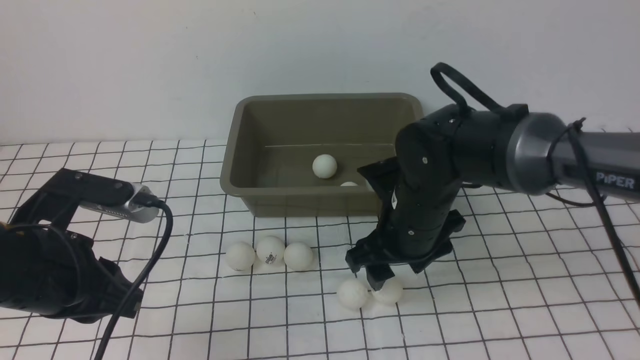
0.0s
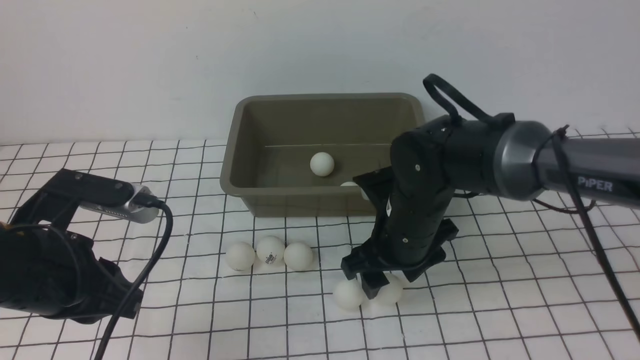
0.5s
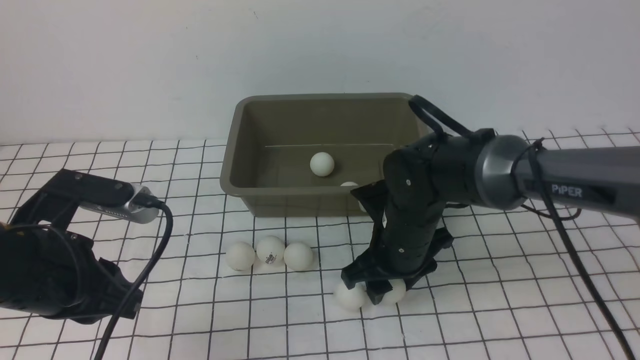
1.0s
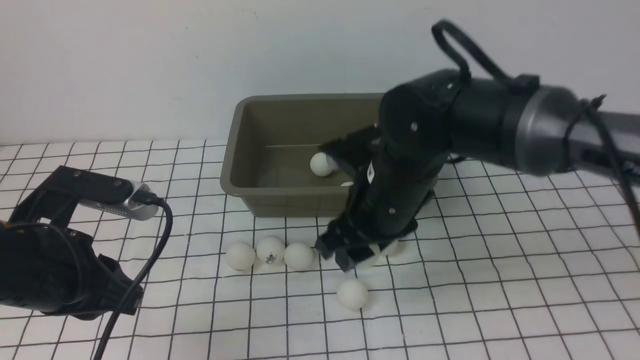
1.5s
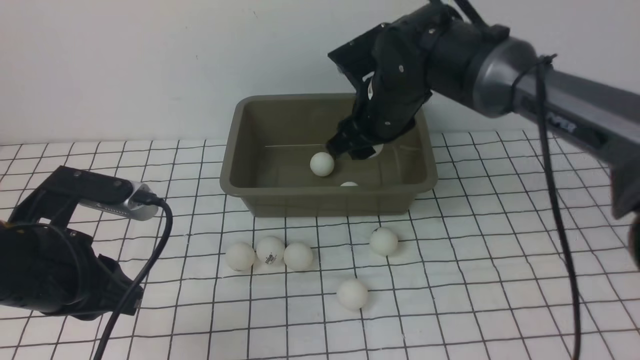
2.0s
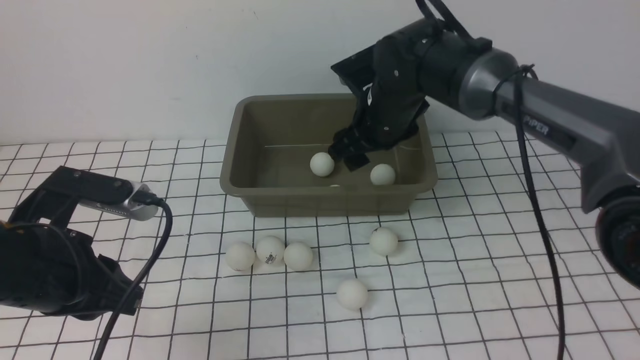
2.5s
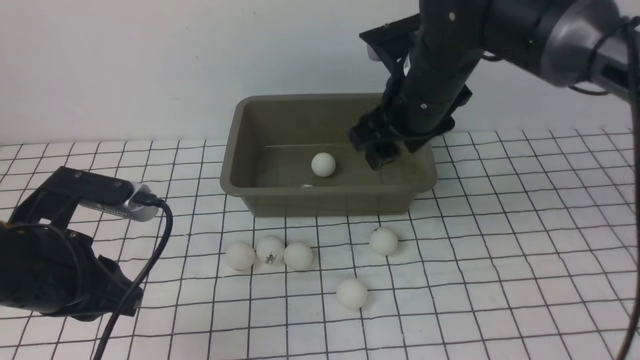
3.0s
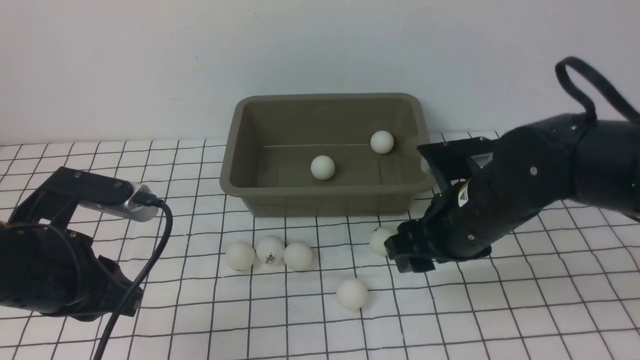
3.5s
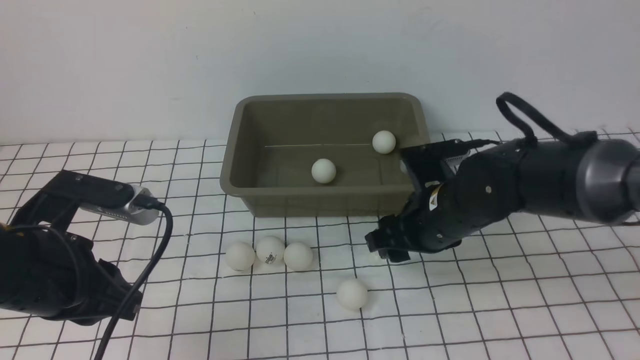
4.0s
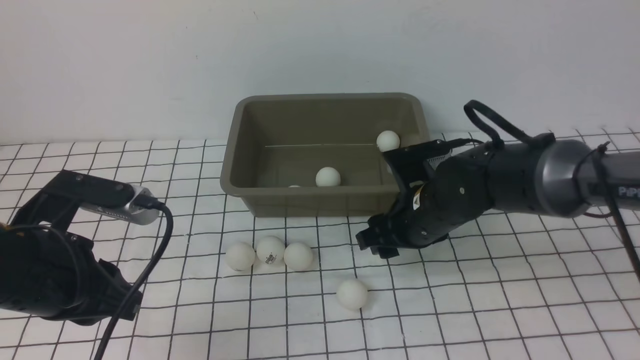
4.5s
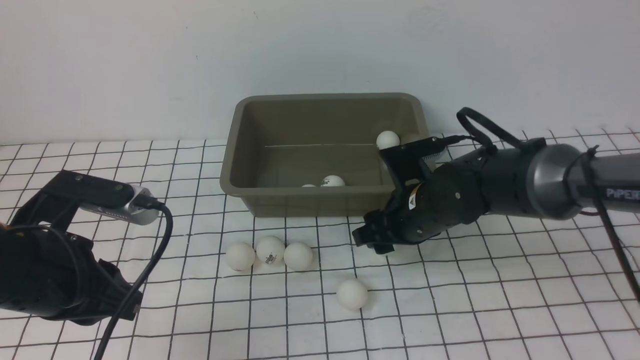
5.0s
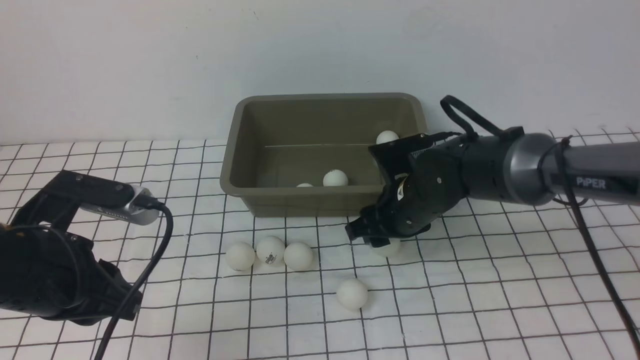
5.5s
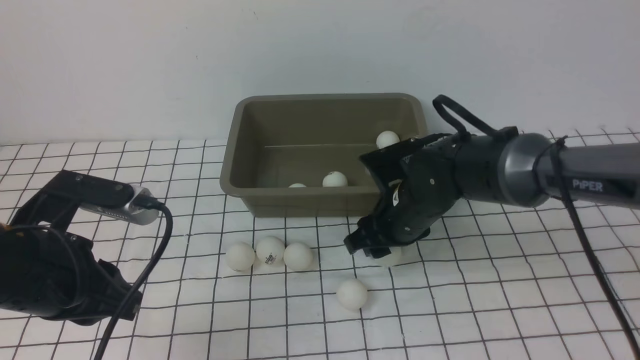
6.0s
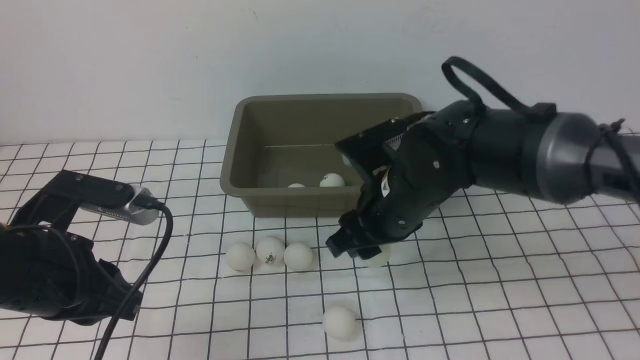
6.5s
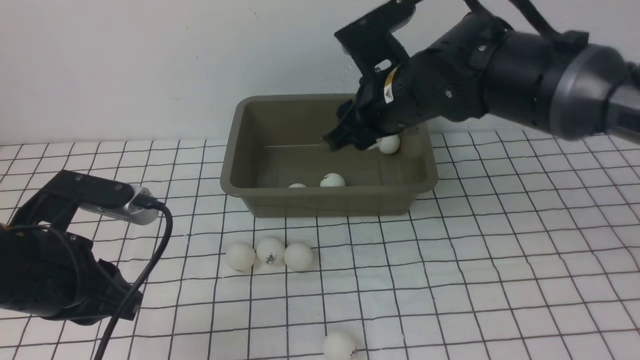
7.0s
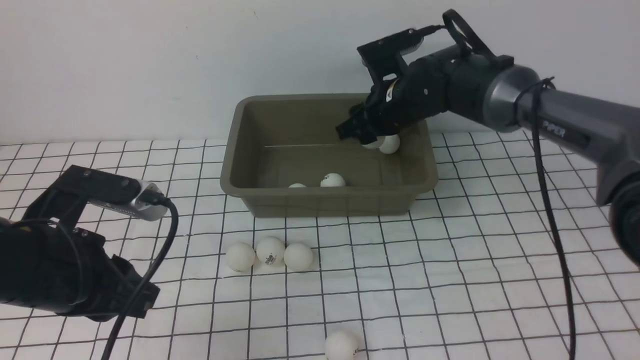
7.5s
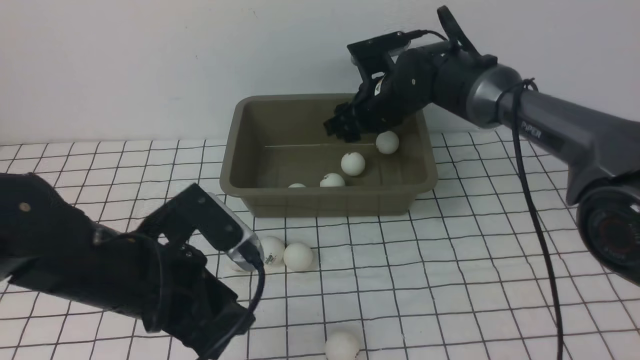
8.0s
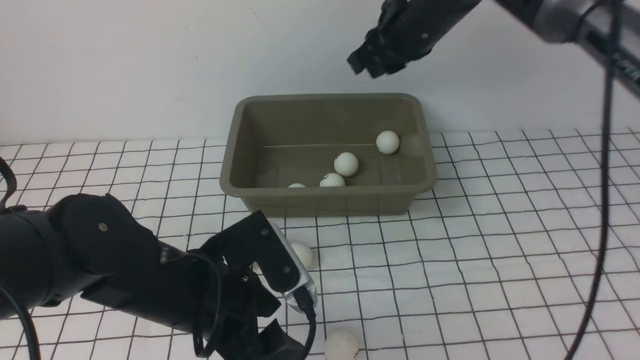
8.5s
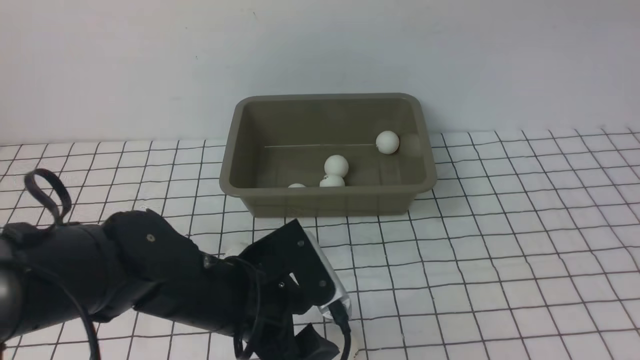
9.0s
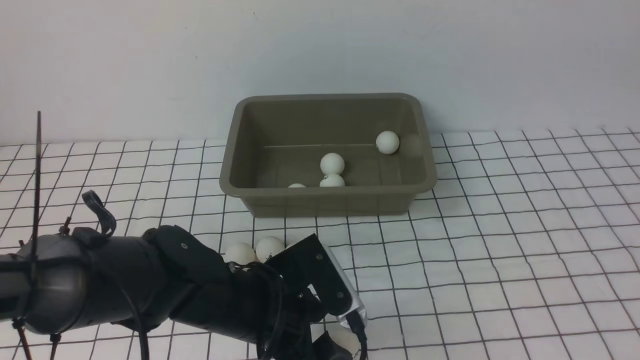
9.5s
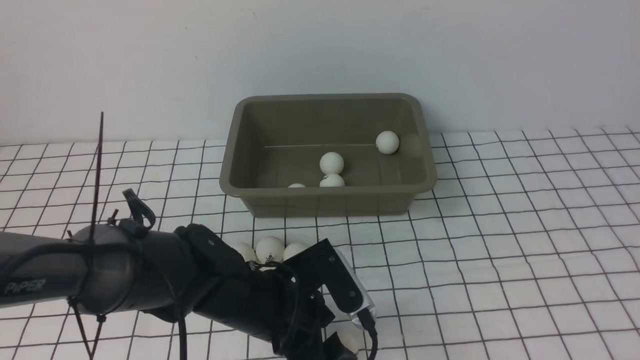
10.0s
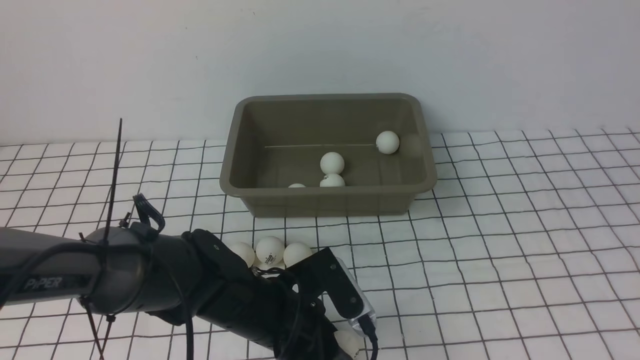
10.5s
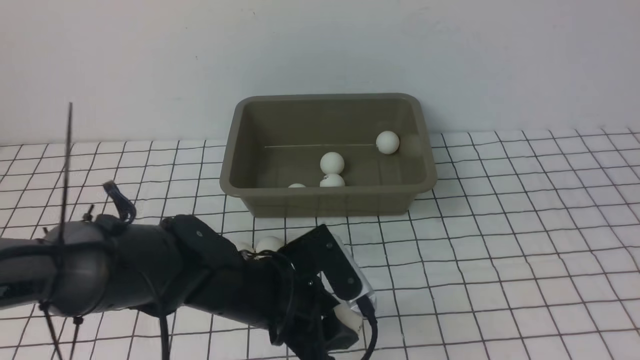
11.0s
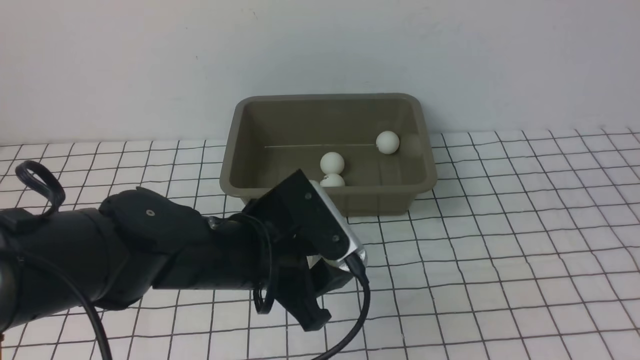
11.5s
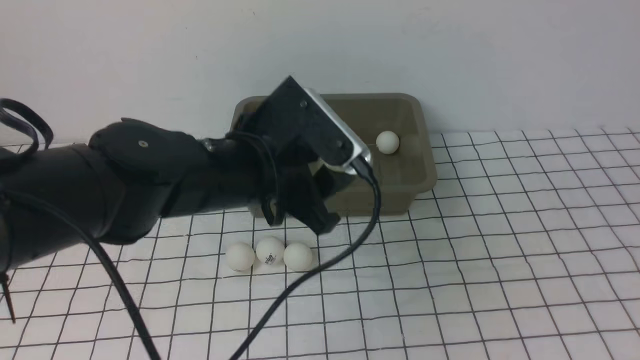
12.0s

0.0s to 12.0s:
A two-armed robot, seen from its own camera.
Step, 1.5s to 2.5s: use the right arm to put the table tennis ball into the box.
Step, 3.0s to 6.0s: use the right arm to clamp the table tennis ball closest to it.
Step, 6.5s to 8.0s: use the right arm to put the table tennis ball into the box.
Step, 8.5s to 11.0s: use the left arm to clamp the table tennis ball closest to it.
0.0s to 2.0s: The right gripper moves forward and upward, about 10 cm.
2.0s to 4.0s: The right gripper goes roughly 15 cm backward, downward and to the right.
4.0s to 6.0s: The right gripper ends up about 5 cm from where it was.
6.0s to 8.0s: The left gripper goes some 10 cm to the right, and opens up; the right gripper heads forward and upward, covering roughly 15 cm.
8.0s to 10.0s: The left gripper is displaced downward and to the right by some 10 cm; the right gripper heads backward, upward and to the right, covering some 50 cm, and closes.
10.0s to 12.0s: The left gripper is displaced forward and upward by roughly 15 cm. Meanwhile the right gripper moves about 5 cm.

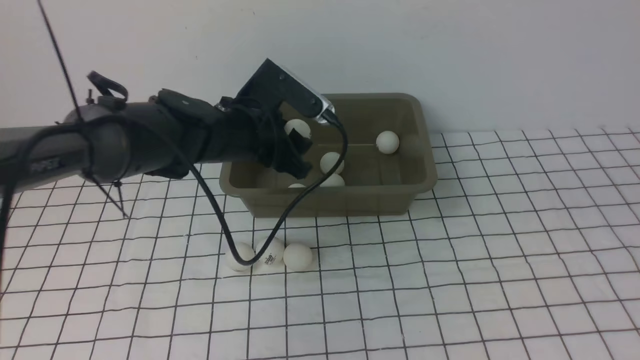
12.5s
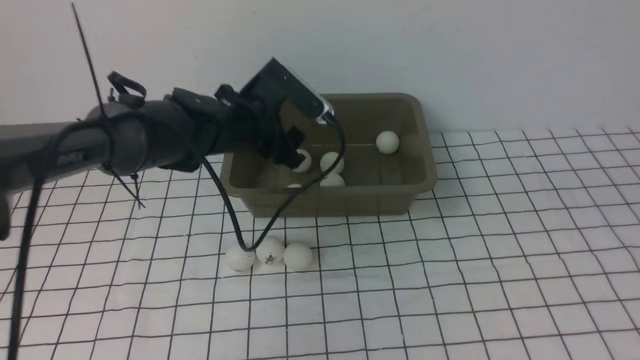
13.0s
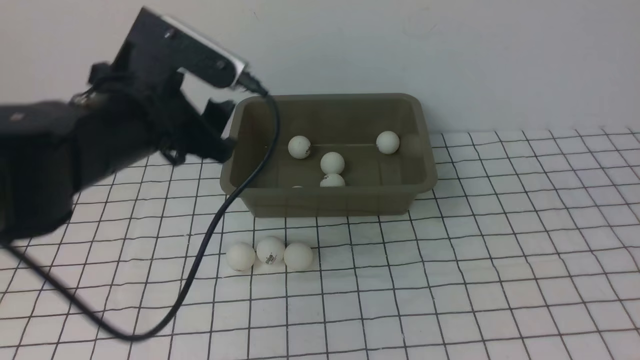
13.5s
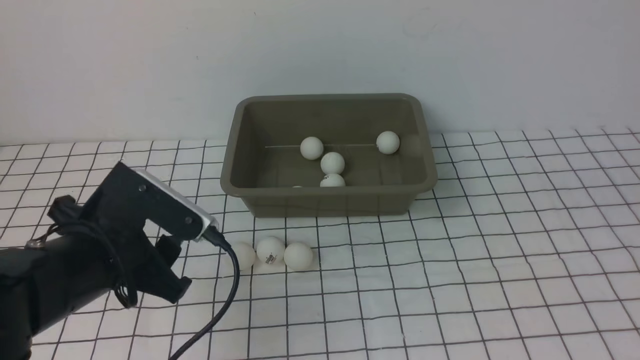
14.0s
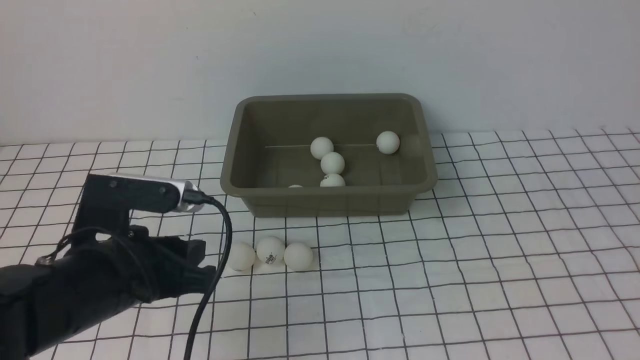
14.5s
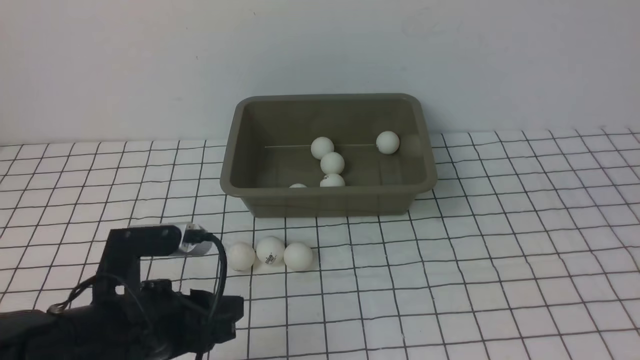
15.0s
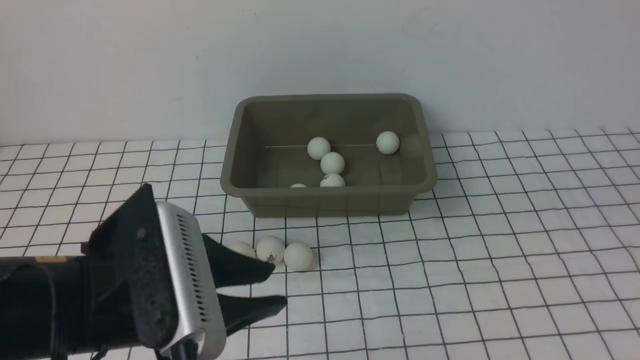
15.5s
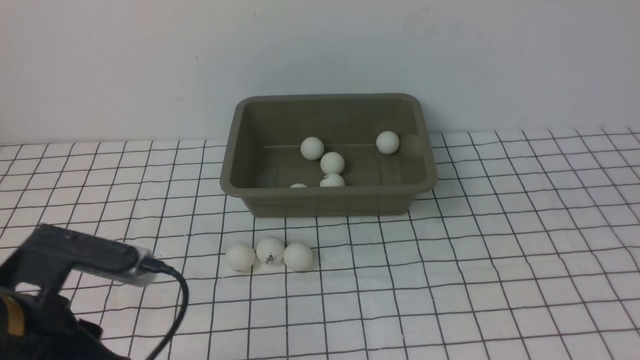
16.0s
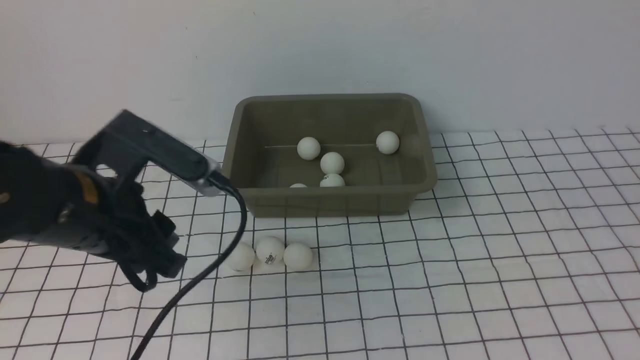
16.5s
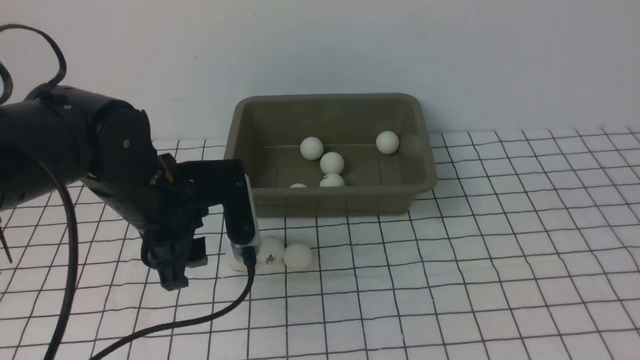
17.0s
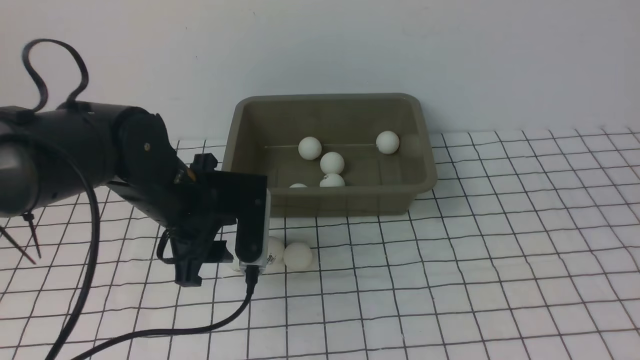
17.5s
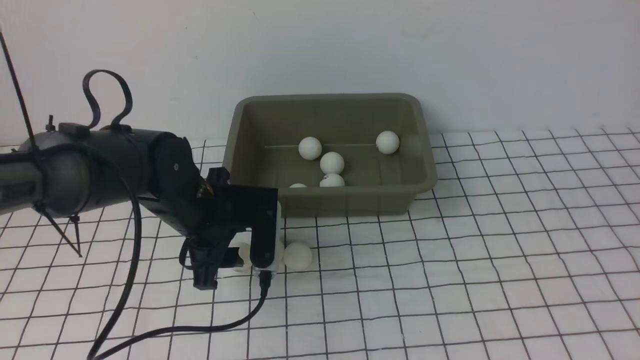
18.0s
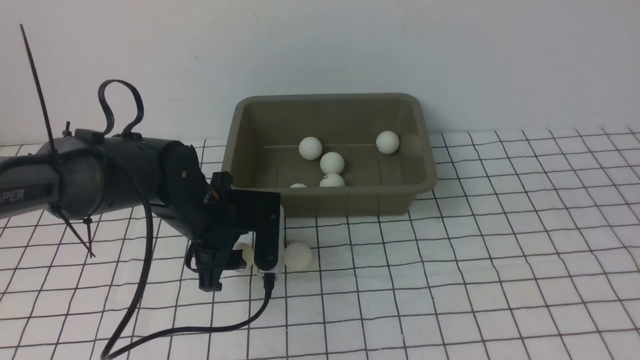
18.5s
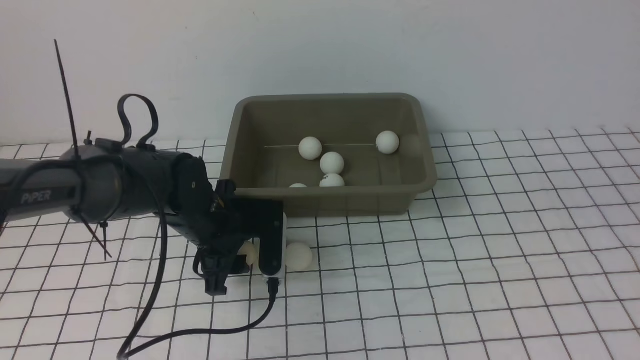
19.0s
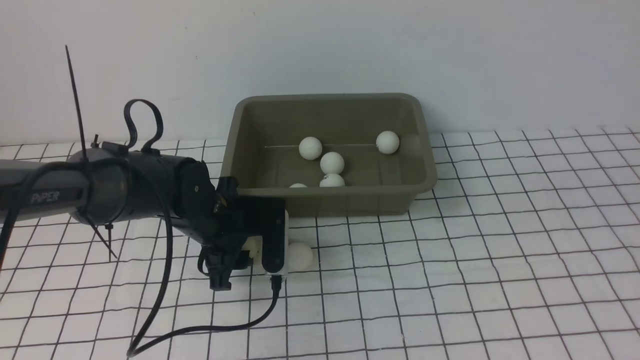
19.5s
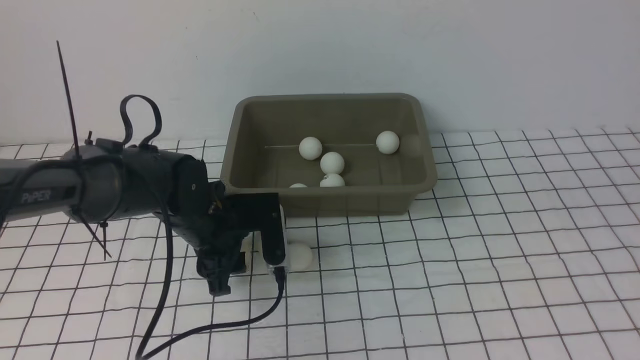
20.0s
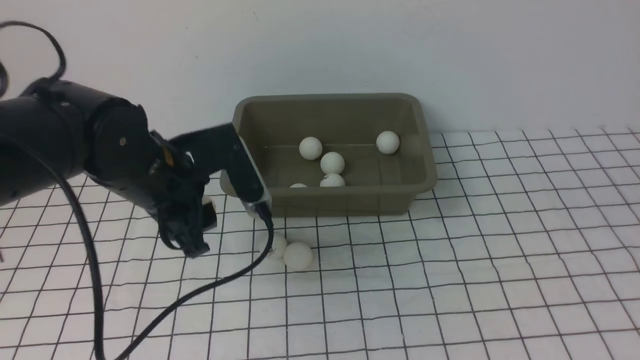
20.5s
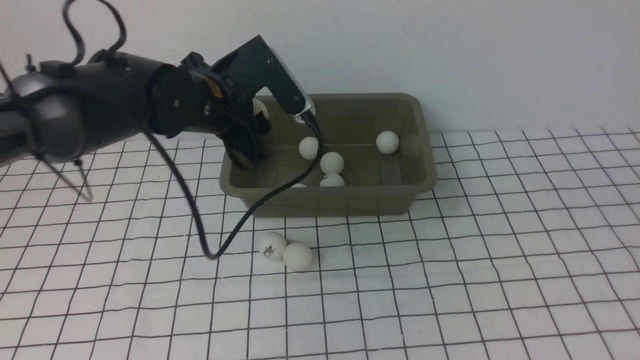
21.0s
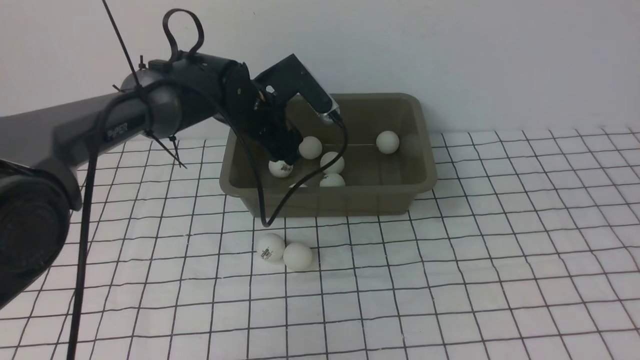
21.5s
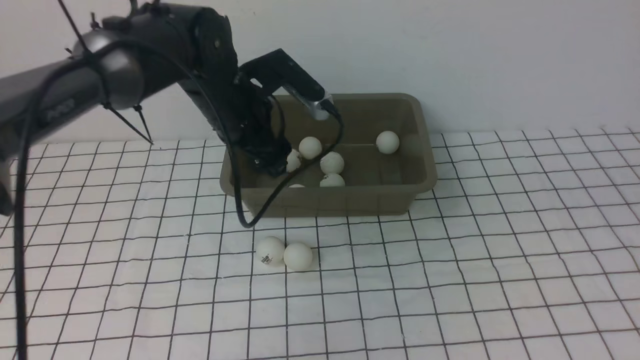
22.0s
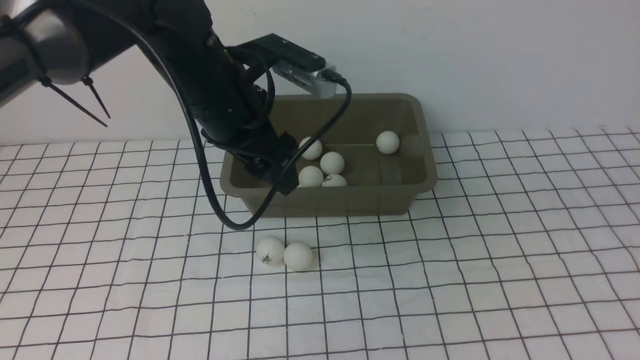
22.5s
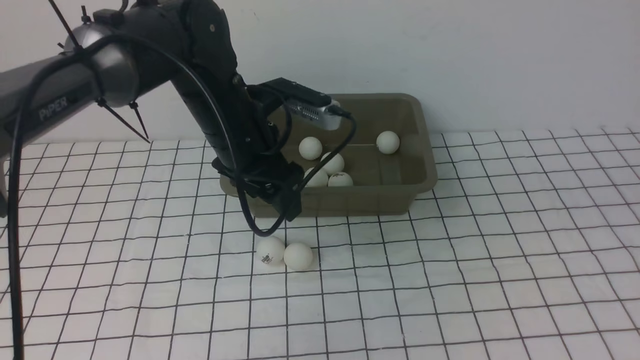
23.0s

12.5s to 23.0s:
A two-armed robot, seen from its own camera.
Step, 13.5s to 20.0s: use the left arm to clamp the table tennis ball closest to it.
Step, 21.0s to 21.5s: use the left arm to put the table tennis ball into the box.
12.5s to 14.5s: The left gripper moves backward, roughly 25 cm, and closes.
14.5s to 16.5s: The left gripper heads forward, covering some 10 cm.
16.5s to 19.0s: The left gripper heads downward and forward, covering roughly 10 cm.
19.0s to 21.0s: The left gripper shifts approximately 15 cm upward and forward.
21.0s to 23.0s: The left gripper reaches roughly 5 cm forward, then returns, and opens.
